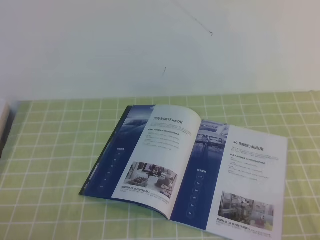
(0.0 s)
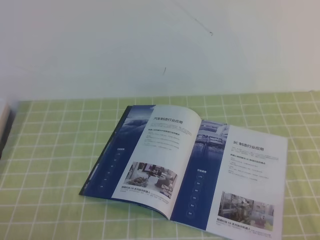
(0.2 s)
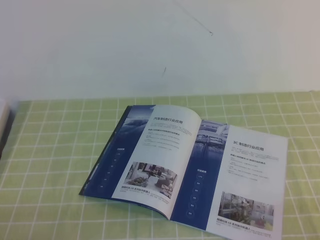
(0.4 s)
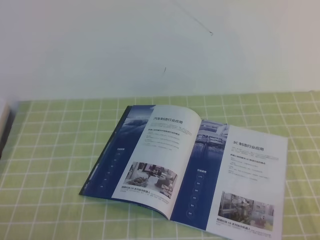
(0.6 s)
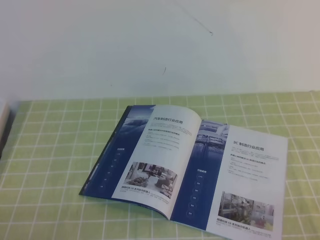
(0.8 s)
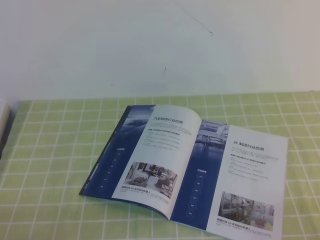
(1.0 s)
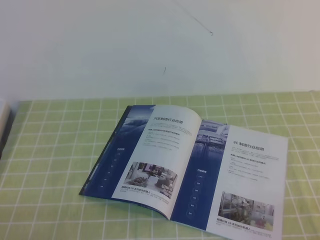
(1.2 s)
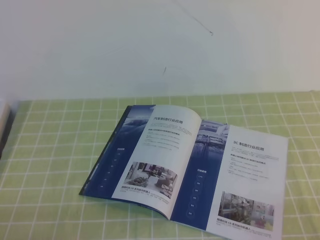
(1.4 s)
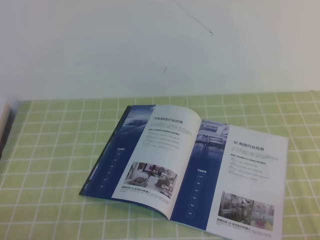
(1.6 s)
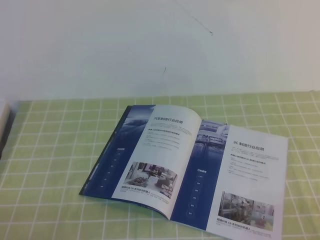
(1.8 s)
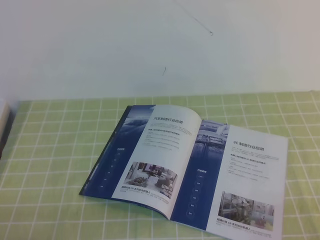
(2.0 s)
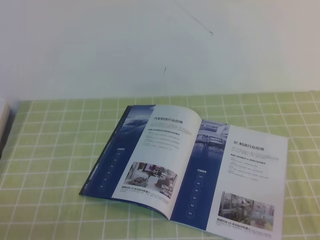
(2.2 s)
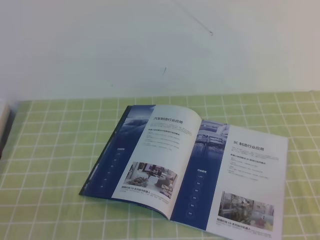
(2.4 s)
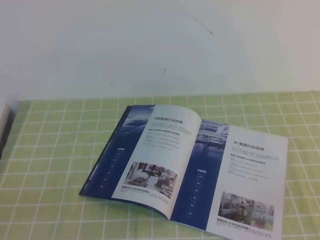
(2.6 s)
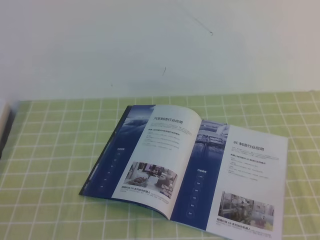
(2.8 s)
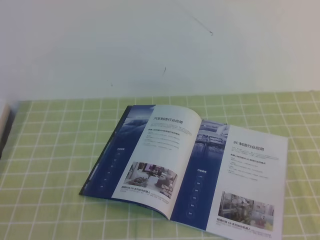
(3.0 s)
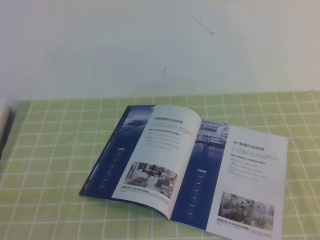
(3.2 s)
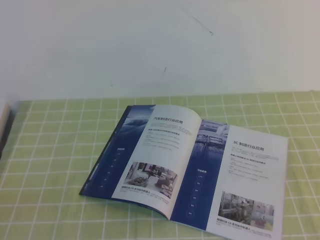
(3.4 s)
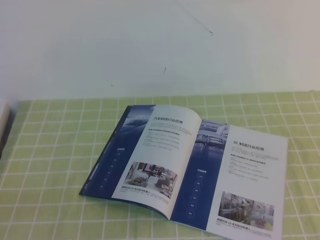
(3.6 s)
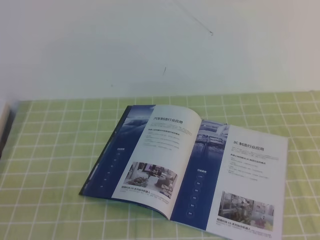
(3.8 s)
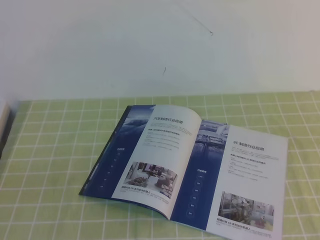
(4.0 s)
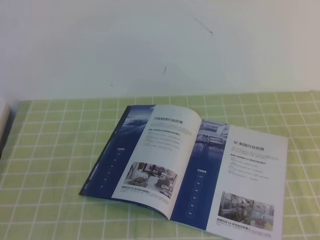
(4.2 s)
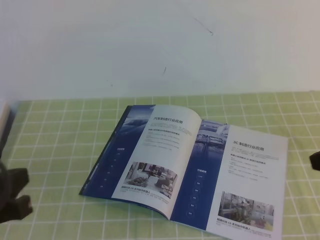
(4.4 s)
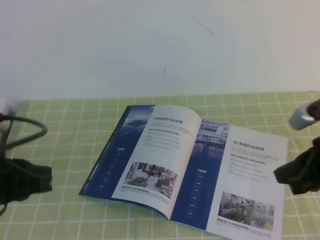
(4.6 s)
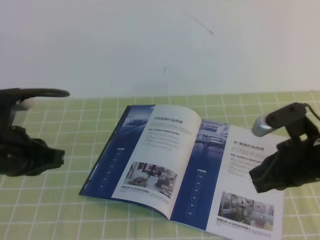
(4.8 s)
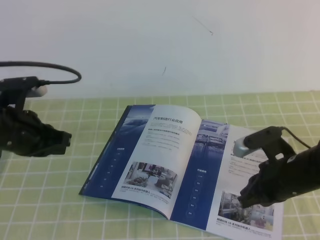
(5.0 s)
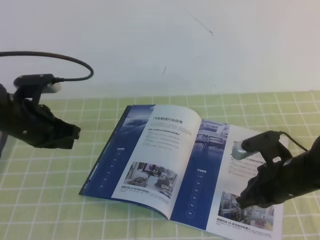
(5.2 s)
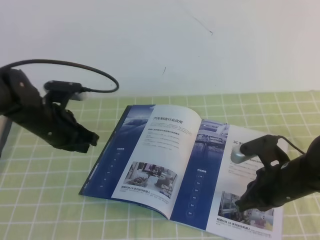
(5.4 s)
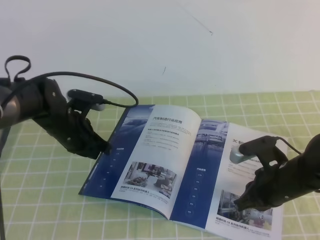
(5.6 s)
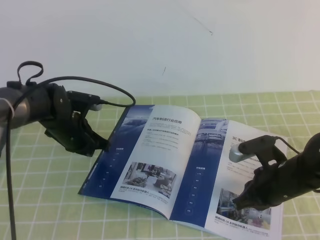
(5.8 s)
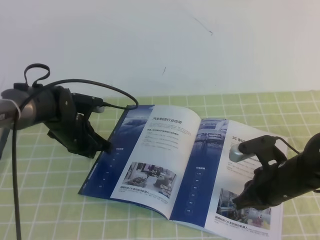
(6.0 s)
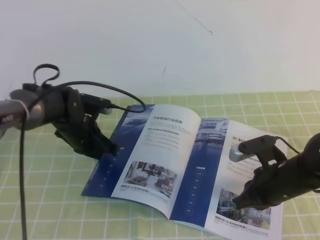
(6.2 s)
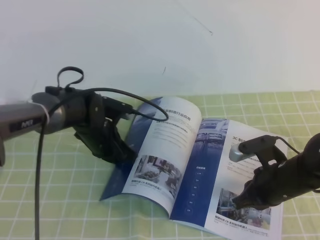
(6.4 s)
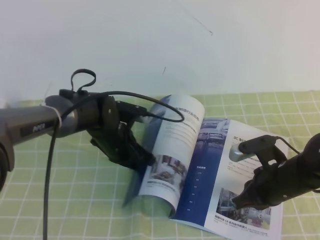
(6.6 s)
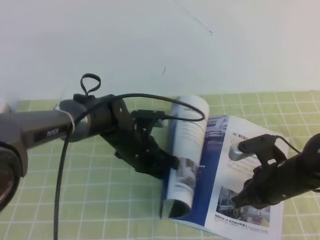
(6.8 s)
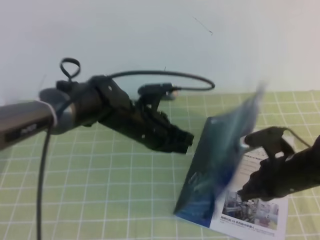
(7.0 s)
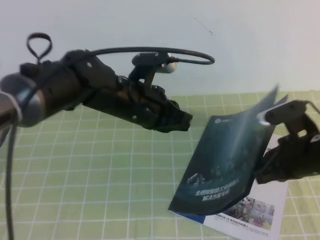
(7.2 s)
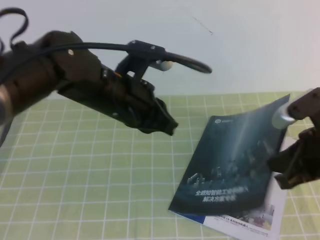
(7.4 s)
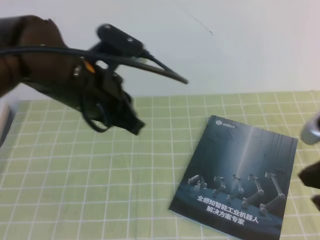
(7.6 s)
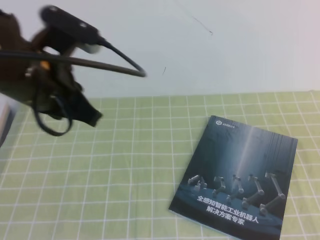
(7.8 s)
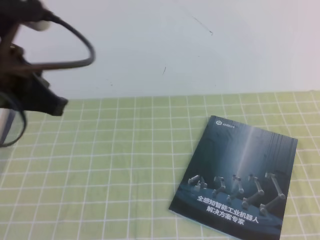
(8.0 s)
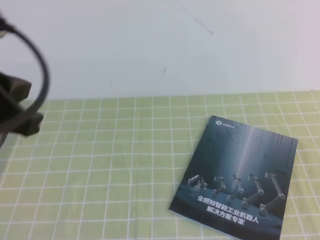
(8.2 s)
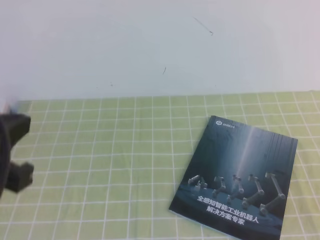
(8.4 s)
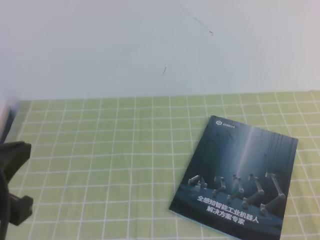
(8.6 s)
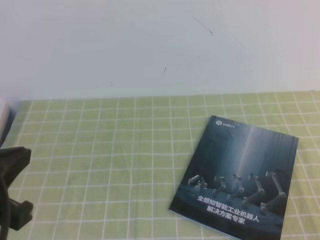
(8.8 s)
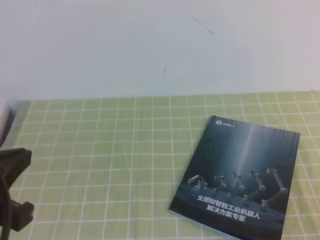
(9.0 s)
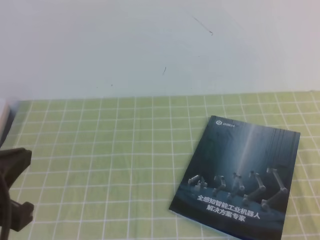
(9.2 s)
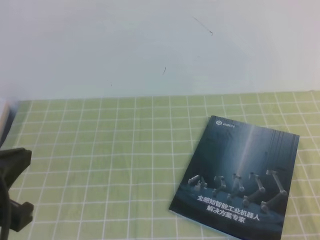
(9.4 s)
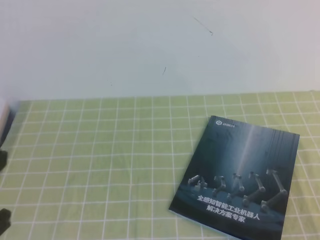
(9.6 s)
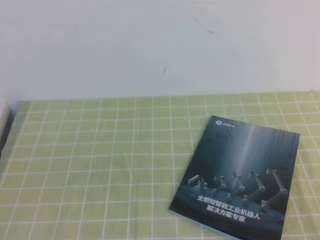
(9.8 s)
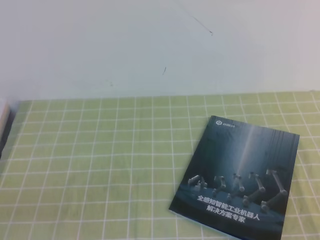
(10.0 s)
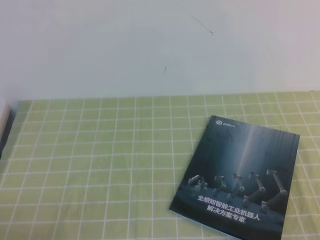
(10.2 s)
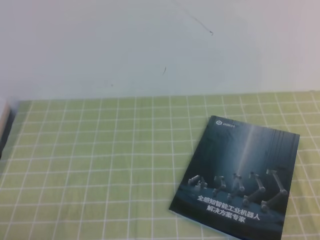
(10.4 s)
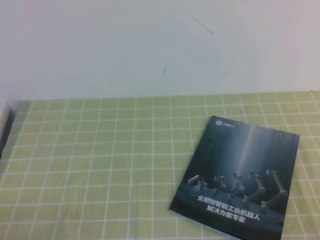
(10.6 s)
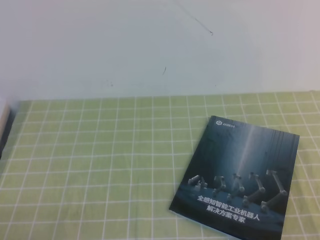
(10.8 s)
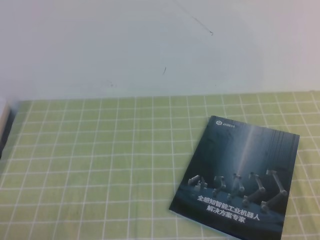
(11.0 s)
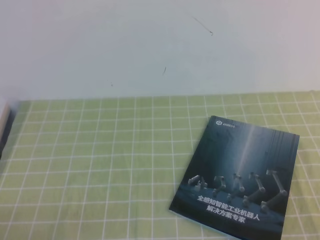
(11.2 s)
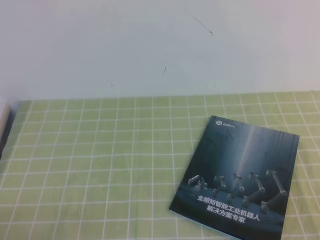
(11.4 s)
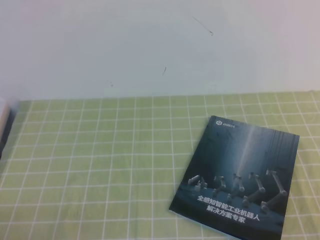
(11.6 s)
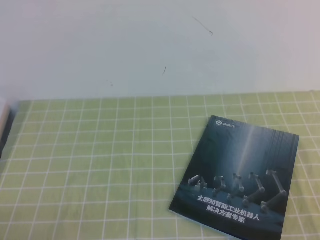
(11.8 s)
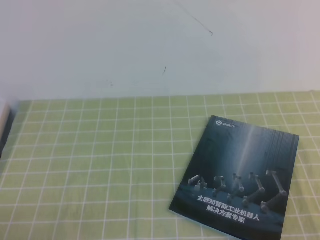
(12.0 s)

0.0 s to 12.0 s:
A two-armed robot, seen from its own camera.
Task of the whole recording: on the green tablecloth, hold the book with one hand and close it with the other.
3.0 to 4.4 s: The left gripper is displaced forward and upward by roughly 10 cm.
4.4 to 6.0 s: The right gripper travels downward, to the left and forward by roughly 25 cm. The left gripper moves forward and downward, about 35 cm.
6.0 to 7.6 s: The left gripper moves upward, backward and to the right, about 20 cm, while the right gripper shifts approximately 15 cm upward.
7.6 to 9.0 s: The left gripper shifts about 20 cm backward and to the left; the right gripper is displaced backward and to the right by roughly 20 cm.
9.0 to 10.4 s: The left gripper travels downward by about 15 cm.

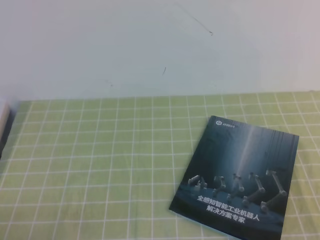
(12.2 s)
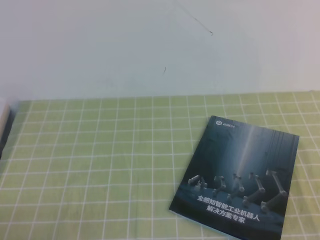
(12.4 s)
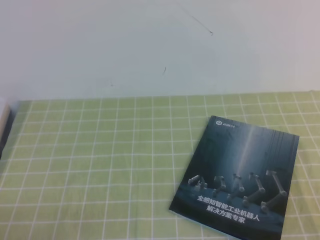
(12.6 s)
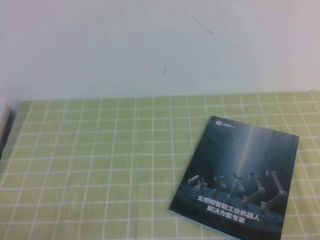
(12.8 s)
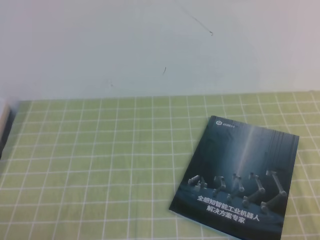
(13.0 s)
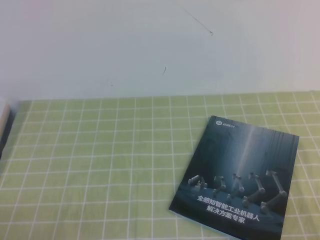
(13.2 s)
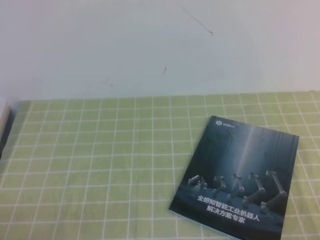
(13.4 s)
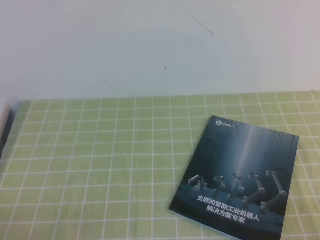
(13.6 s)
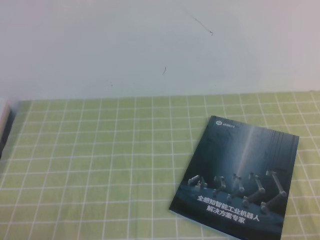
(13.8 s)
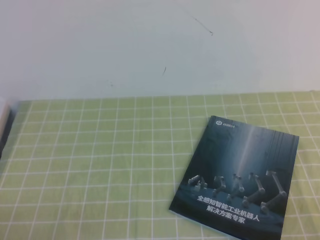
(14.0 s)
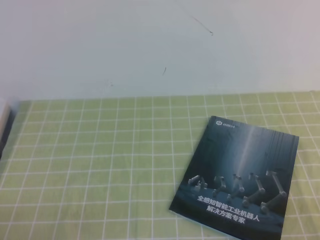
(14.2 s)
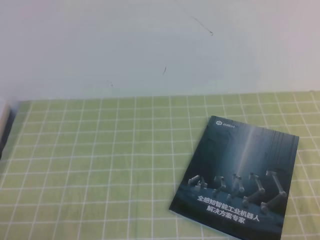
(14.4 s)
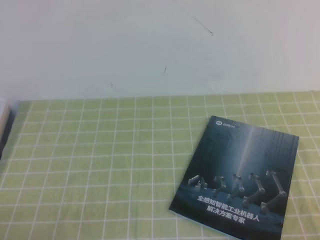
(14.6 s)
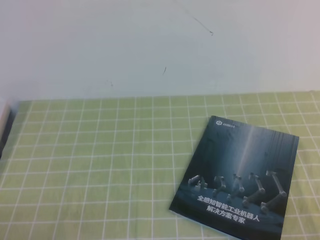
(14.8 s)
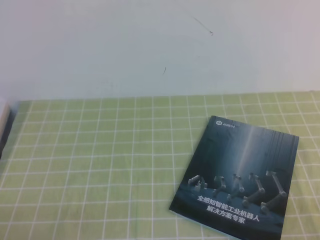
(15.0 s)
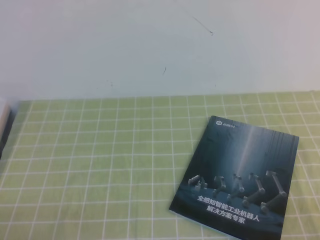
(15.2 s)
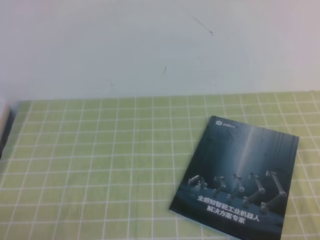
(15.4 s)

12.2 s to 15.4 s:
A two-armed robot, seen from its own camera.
Task of the whole recording: on the green tablecloth, hold the book with one hand and close it with the other.
13.8 to 15.4 s: Neither gripper changes place.

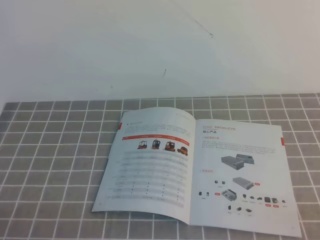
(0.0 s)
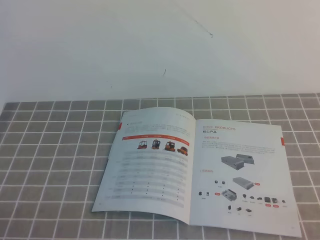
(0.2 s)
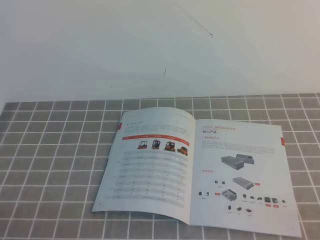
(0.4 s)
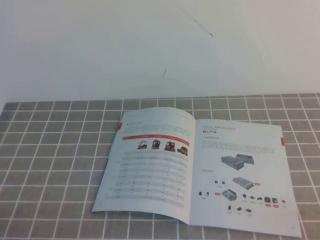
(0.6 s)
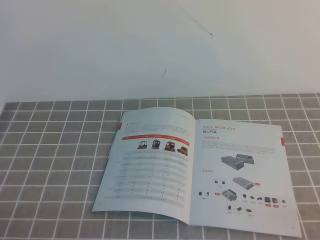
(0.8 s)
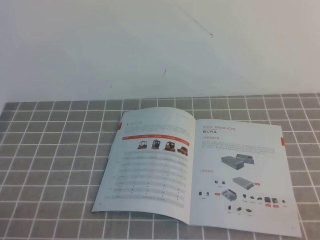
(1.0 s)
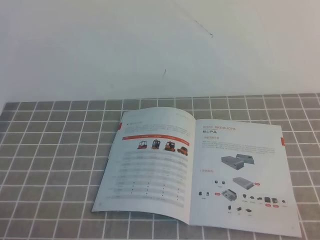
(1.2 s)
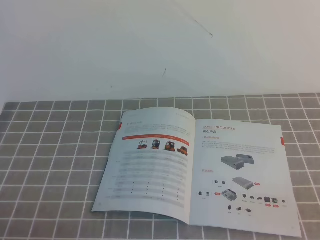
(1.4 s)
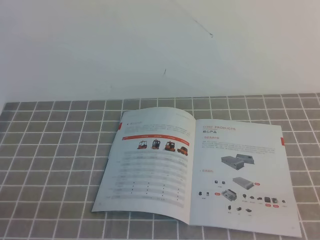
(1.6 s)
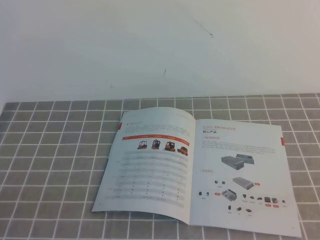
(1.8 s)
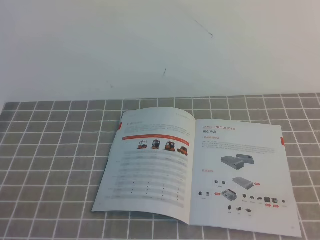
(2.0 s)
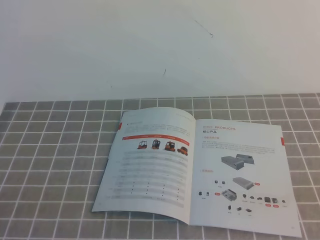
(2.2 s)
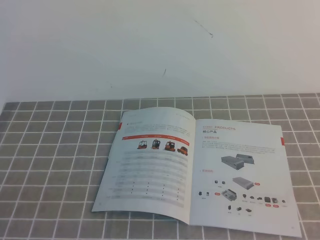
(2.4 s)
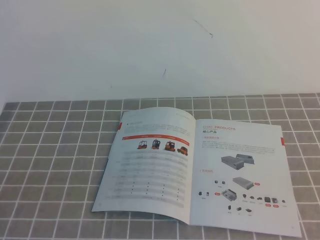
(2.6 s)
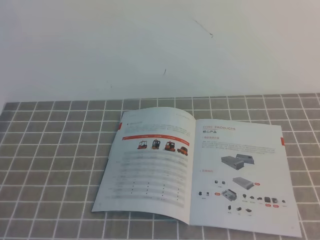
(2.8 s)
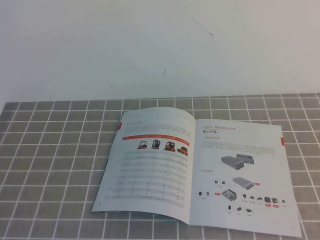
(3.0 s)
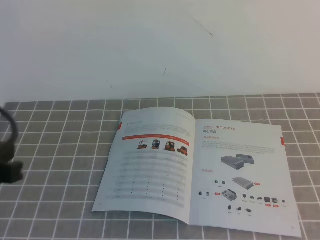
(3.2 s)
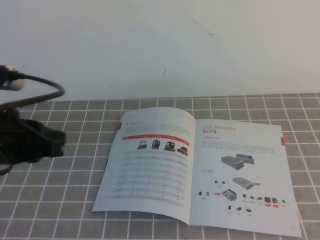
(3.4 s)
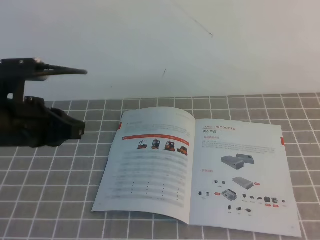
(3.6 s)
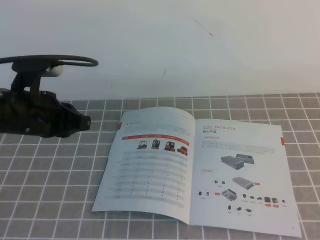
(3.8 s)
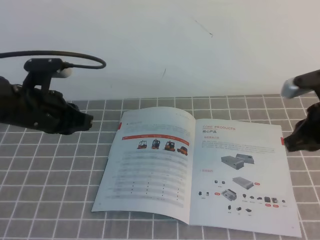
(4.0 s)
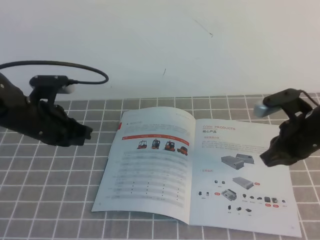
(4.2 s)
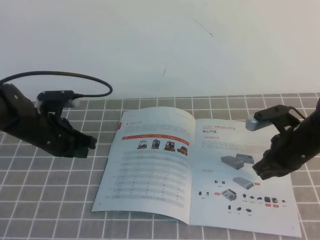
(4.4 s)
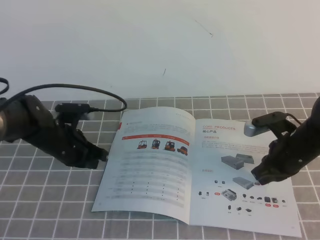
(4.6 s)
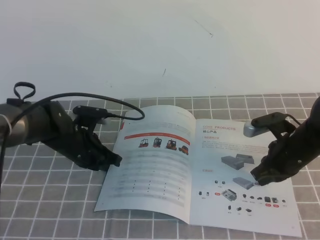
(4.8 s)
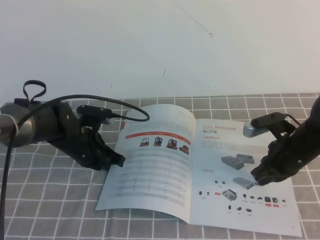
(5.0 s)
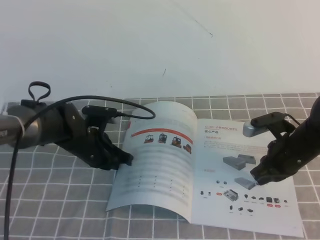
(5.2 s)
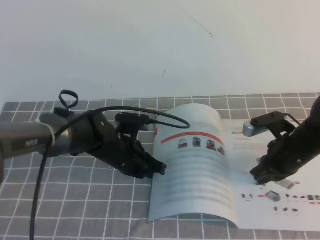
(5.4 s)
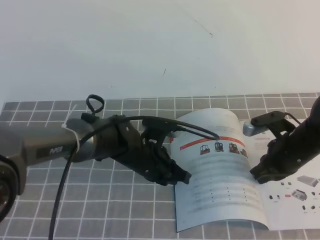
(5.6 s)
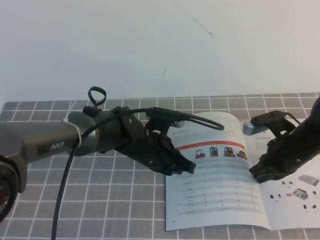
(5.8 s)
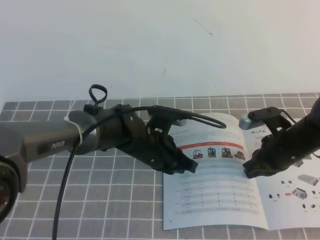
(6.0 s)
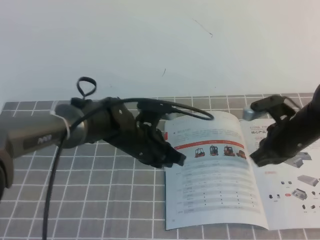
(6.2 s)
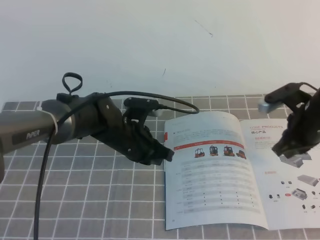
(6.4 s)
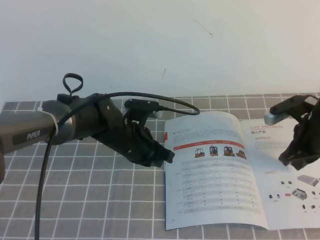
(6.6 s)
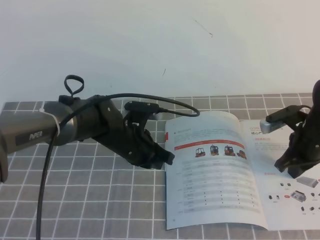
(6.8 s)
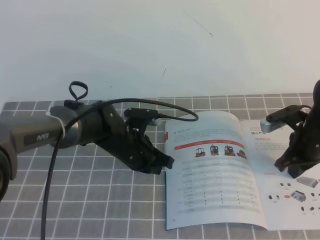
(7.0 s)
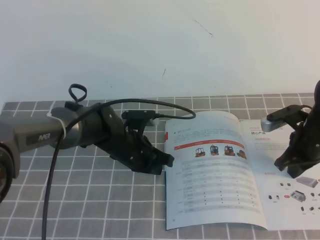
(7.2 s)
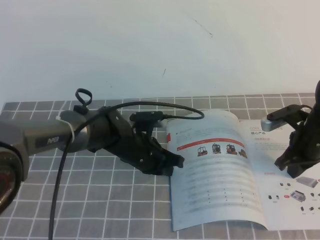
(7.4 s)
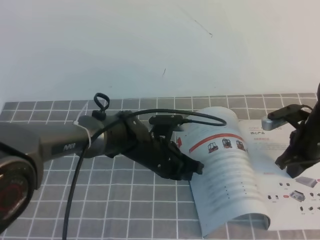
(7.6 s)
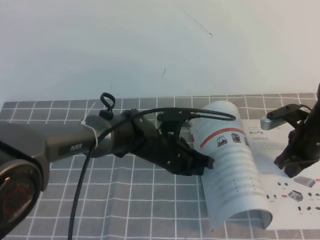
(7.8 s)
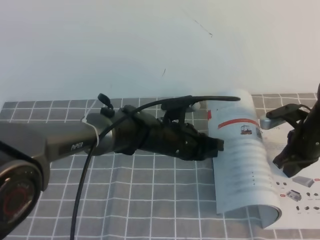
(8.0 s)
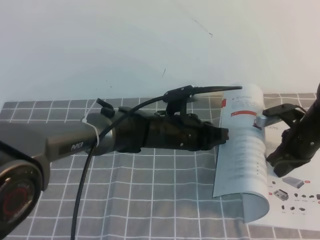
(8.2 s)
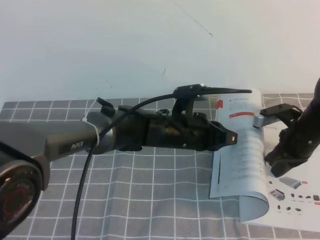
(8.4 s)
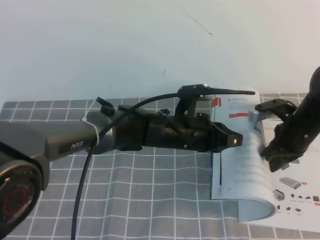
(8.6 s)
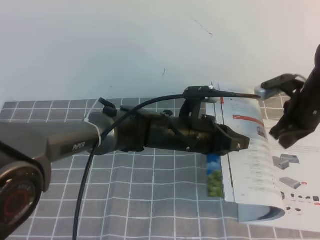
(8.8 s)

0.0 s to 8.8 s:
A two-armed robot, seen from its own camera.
Task of the whole recording: on the grey tablecloth, hold the book with one hand and close it with the other.
3.0 to 4.4 s: The grippers both shift forward and downward by approximately 30 cm.
4.4 to 5.8 s: The left gripper heads to the right, covering roughly 20 cm.
5.8 to 7.4 s: The right gripper moves roughly 5 cm.
7.4 to 8.8 s: The left gripper heads to the right, covering some 10 cm. The right gripper travels upward by about 5 cm.
